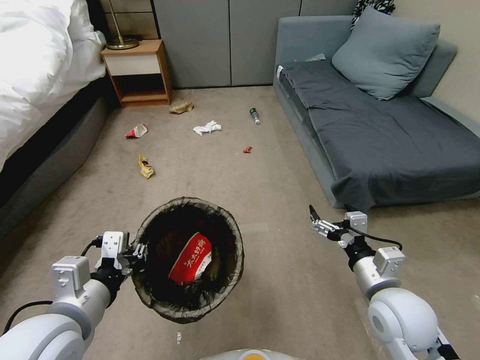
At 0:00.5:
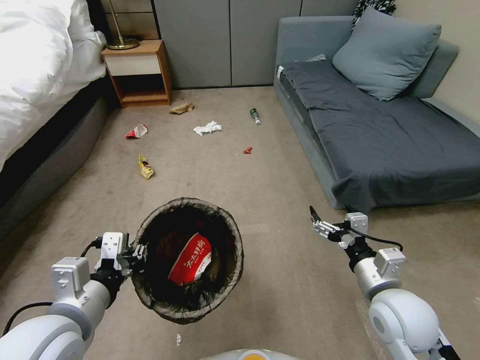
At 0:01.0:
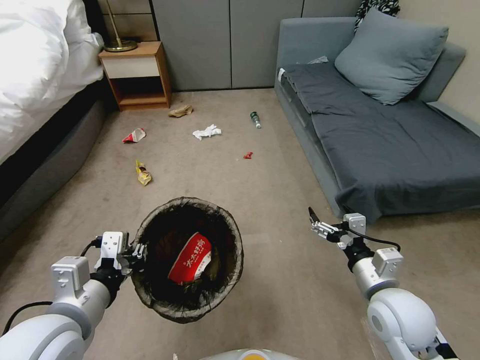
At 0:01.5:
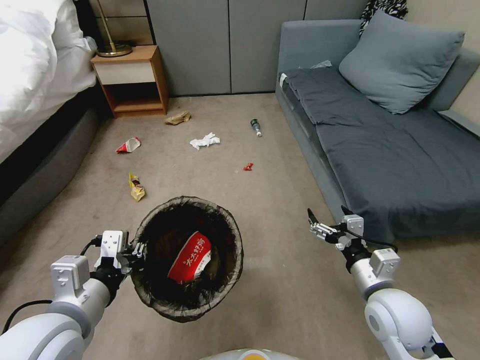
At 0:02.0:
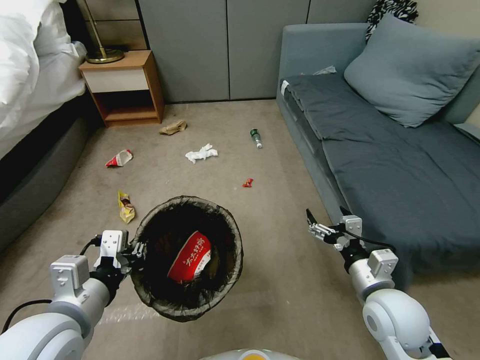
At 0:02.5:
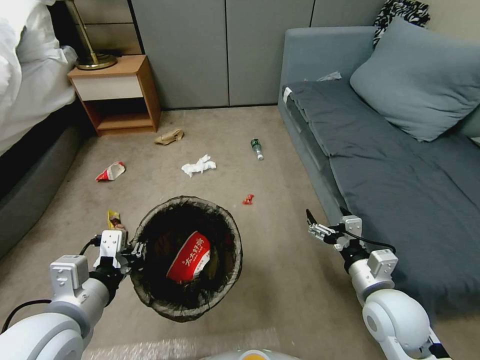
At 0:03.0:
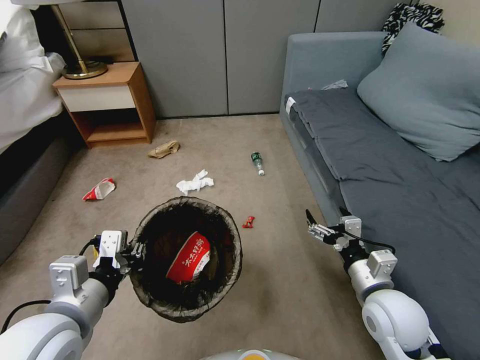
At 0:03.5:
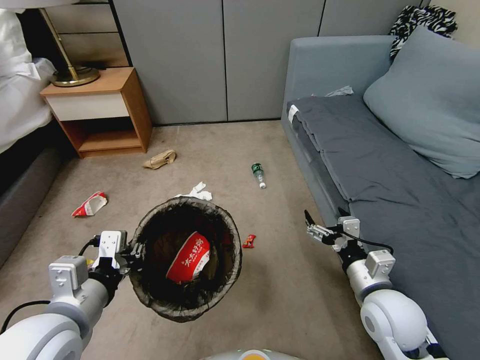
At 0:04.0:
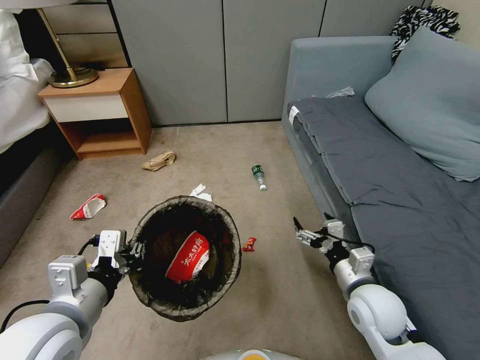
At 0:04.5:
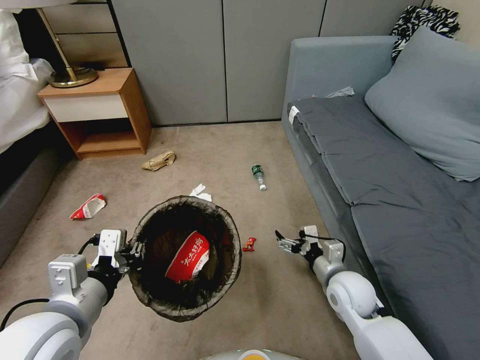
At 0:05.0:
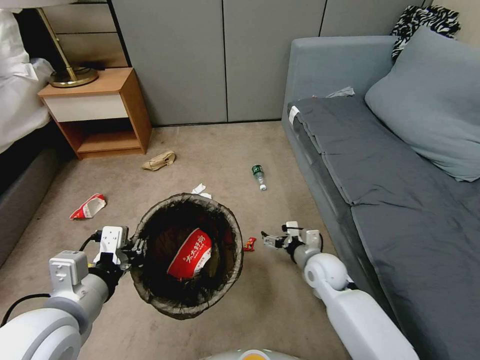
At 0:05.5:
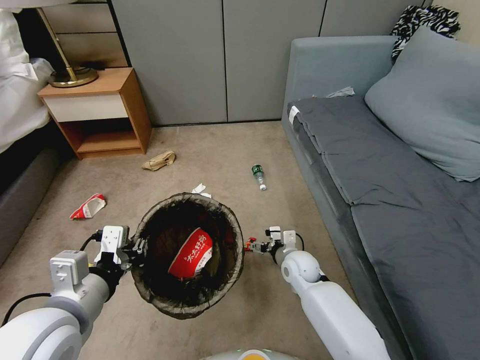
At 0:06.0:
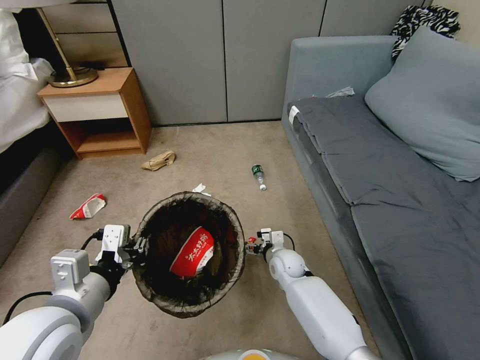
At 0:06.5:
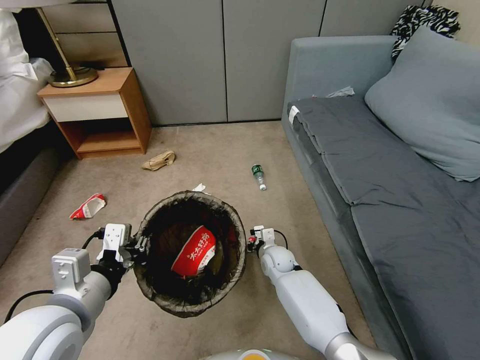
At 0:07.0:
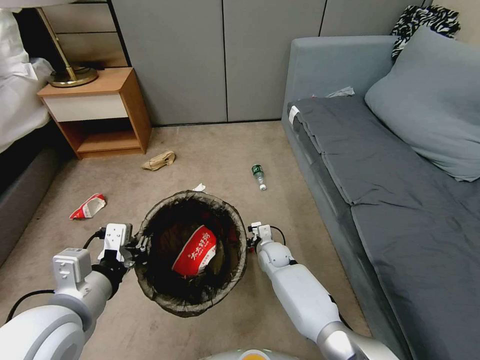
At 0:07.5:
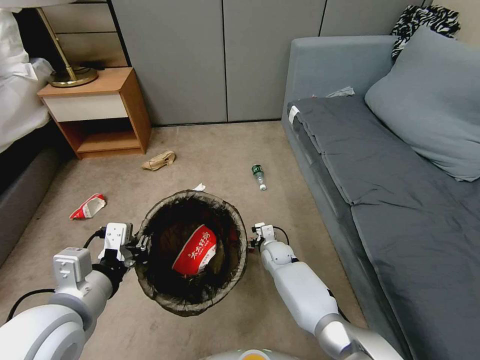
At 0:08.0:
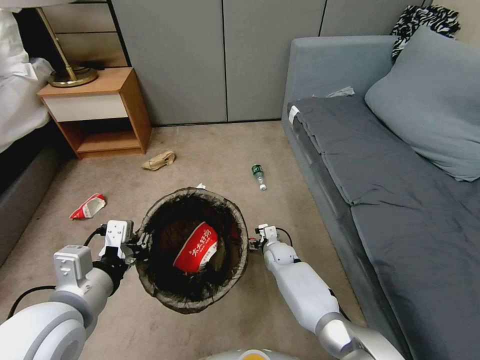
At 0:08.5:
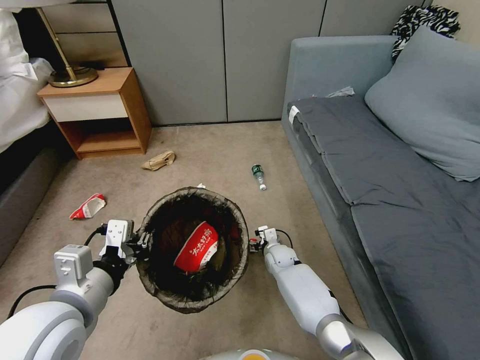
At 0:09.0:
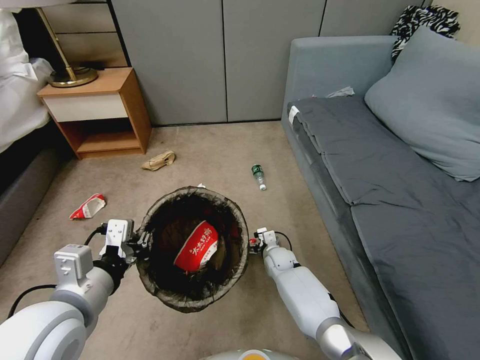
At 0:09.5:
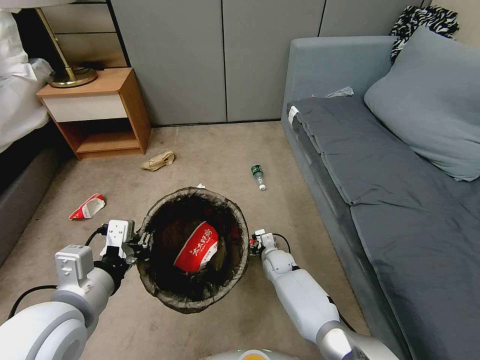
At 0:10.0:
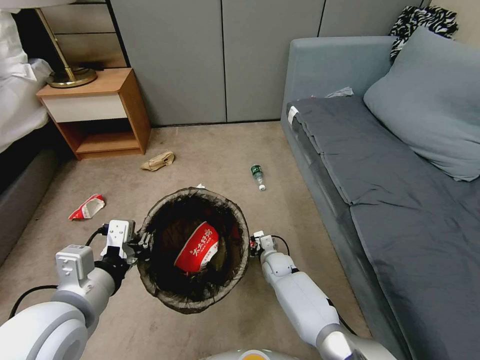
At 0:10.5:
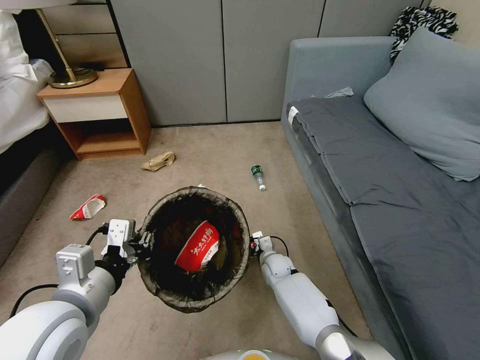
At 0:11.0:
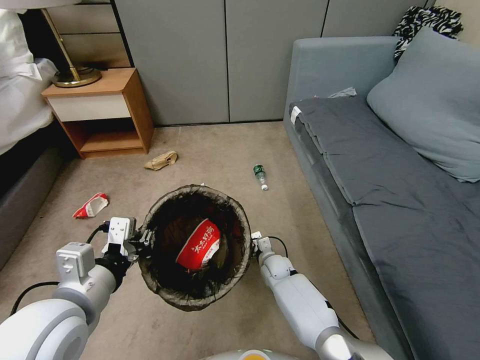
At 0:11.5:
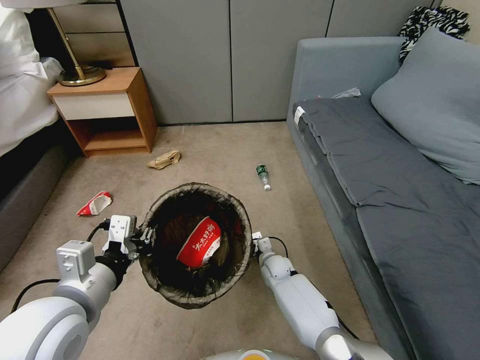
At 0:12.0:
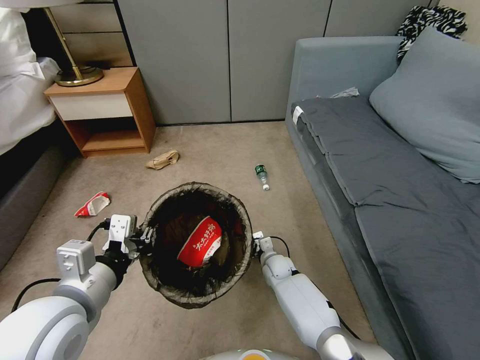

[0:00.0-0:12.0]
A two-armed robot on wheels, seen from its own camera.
Task of the whole recording: Pick up the trash bin, then pick up the garbage from the floor and place it into the trash bin.
0:04.0 to 0:06.0: The right gripper travels forward, to the left and downward by some 25 cm.
0:06.0 to 0:08.0: The right gripper ends up about 5 cm from where it was.
0:08.0 to 0:10.0: The grippers stay close to where they were, moving slightly.
0:10.0 to 0:12.0: The right gripper closes its fingers.

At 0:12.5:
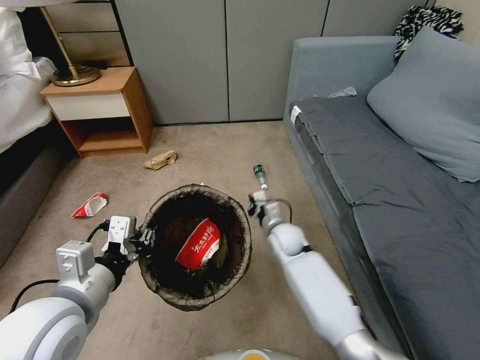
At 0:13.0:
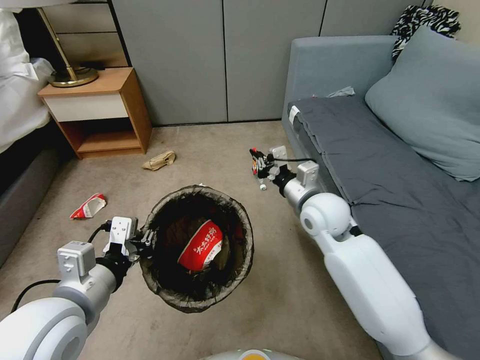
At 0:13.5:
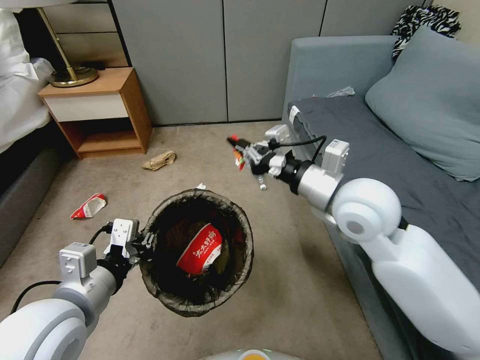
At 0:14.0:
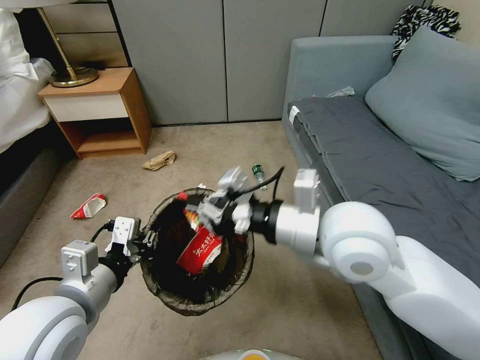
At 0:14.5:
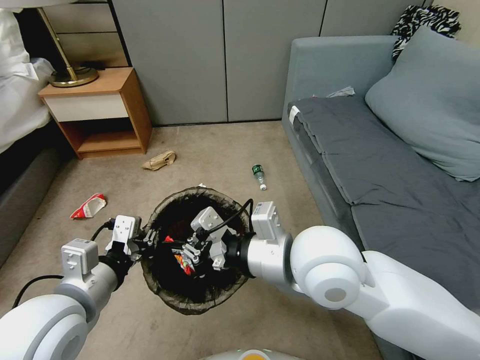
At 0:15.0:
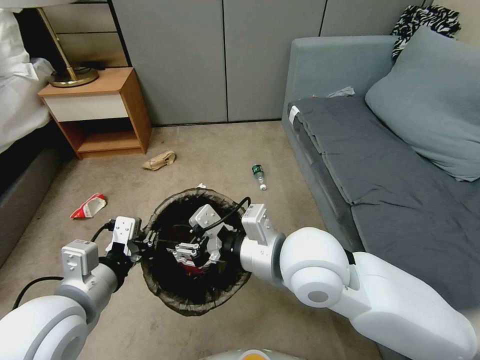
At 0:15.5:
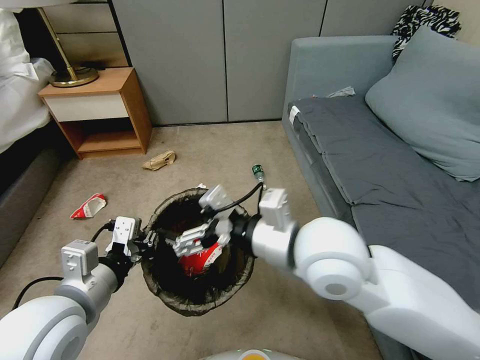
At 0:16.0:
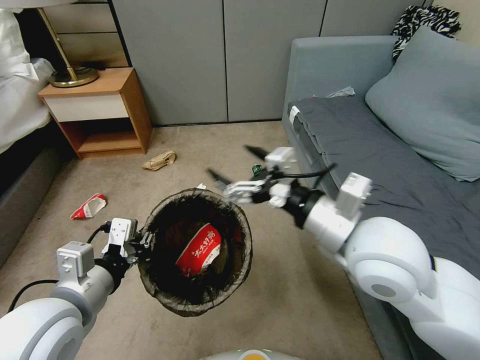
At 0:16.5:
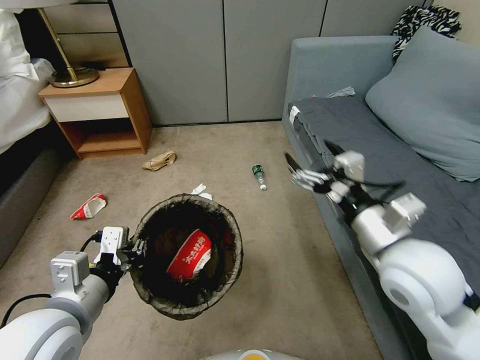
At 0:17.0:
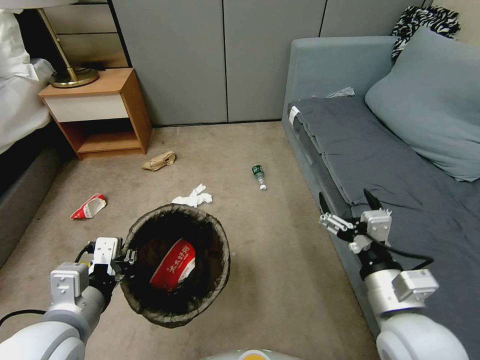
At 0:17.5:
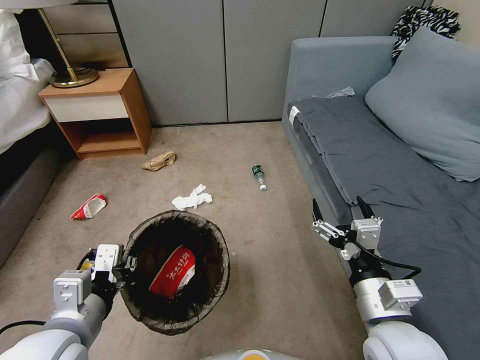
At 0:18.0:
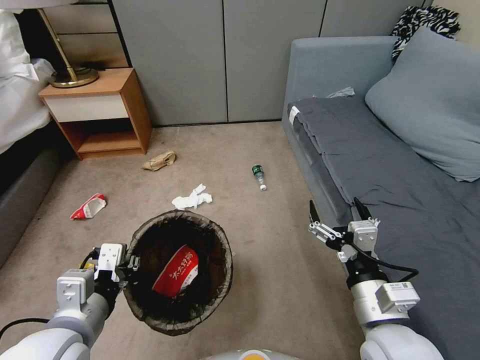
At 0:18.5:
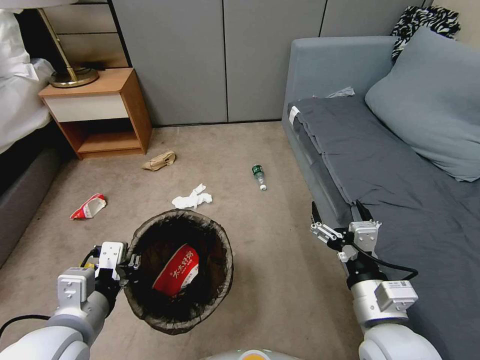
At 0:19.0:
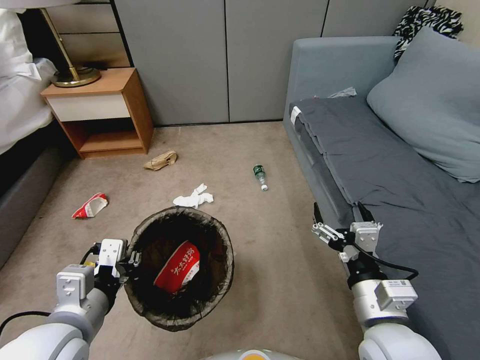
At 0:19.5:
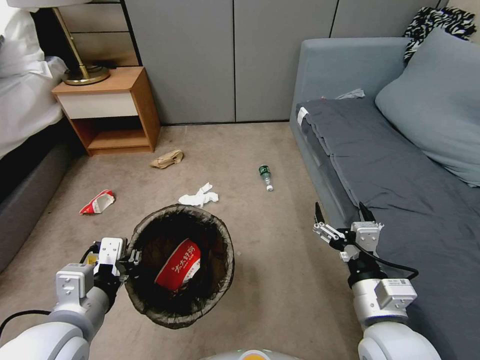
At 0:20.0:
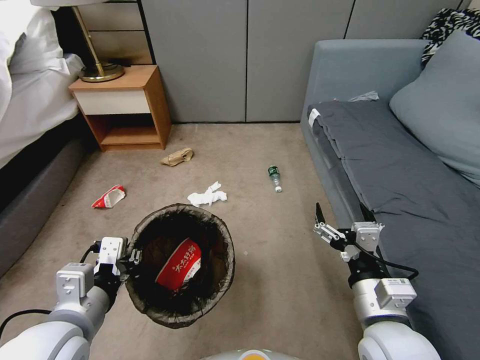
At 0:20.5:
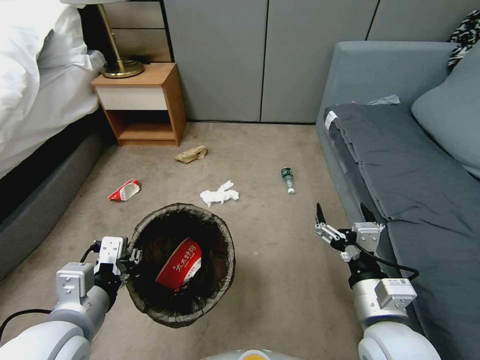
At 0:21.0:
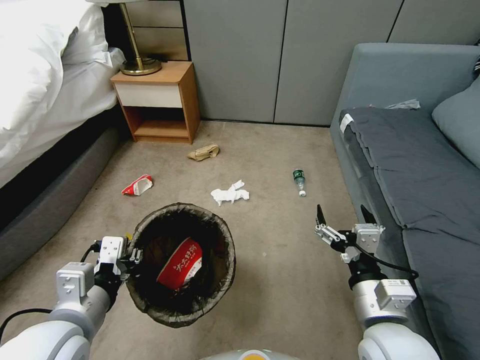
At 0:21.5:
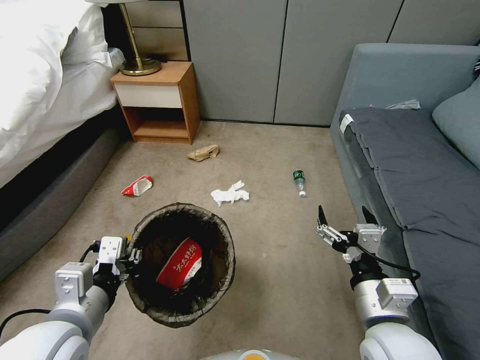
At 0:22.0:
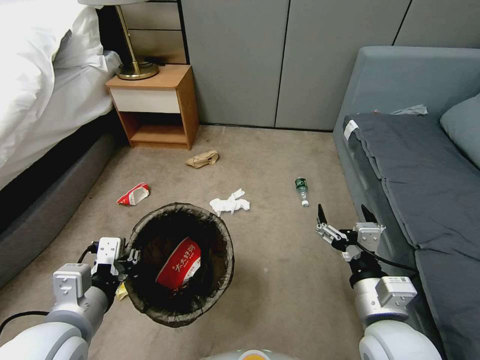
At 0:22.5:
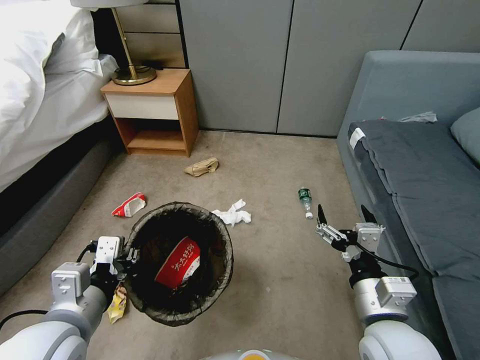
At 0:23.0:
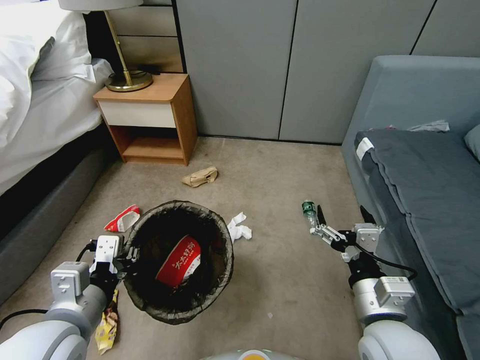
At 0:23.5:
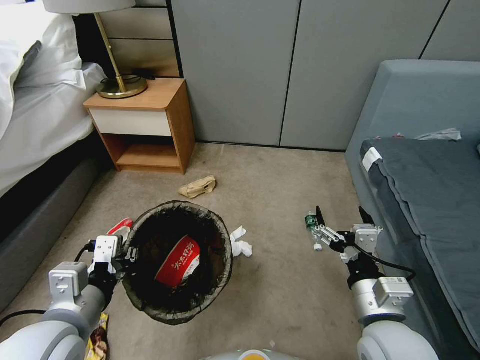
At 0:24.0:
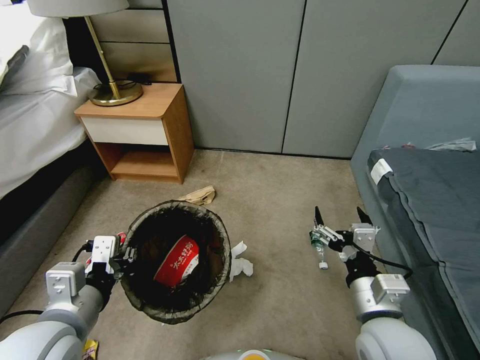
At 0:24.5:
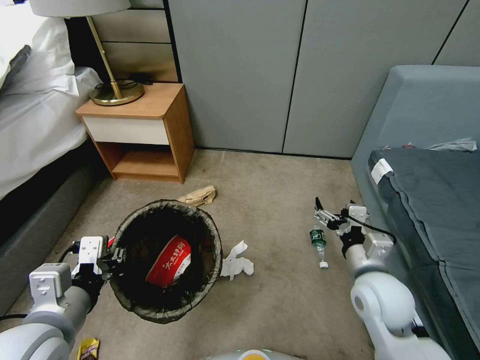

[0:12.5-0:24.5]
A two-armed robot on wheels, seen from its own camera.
Task of the whole recording: Pick up the trash bin, then pick up the garbage from the floor and place it into the trash bin.
0:12.5 to 0:14.5: The right gripper is displaced upward and backward by about 35 cm.
0:14.5 to 0:16.5: The right gripper is displaced to the right by about 15 cm, and opens its fingers.
0:16.5 to 0:18.5: The right gripper is displaced downward and backward by roughly 10 cm.
0:22.5 to 0:24.5: The right gripper is displaced forward by approximately 10 cm.

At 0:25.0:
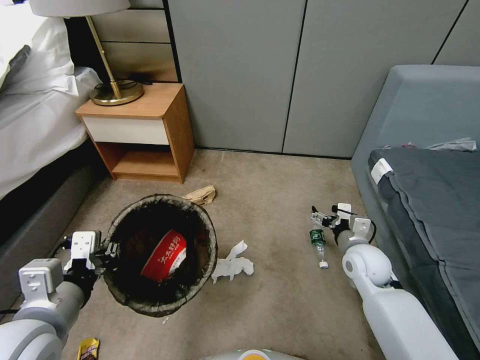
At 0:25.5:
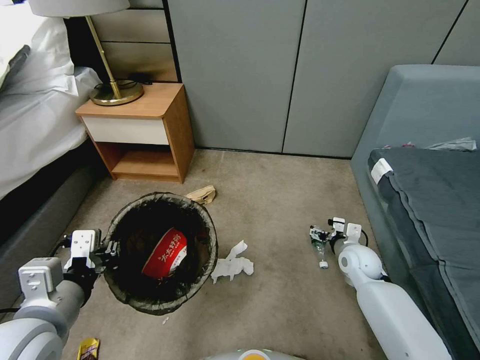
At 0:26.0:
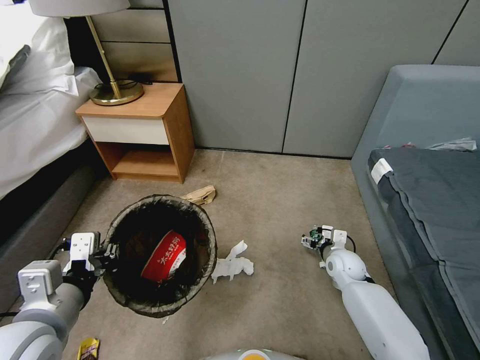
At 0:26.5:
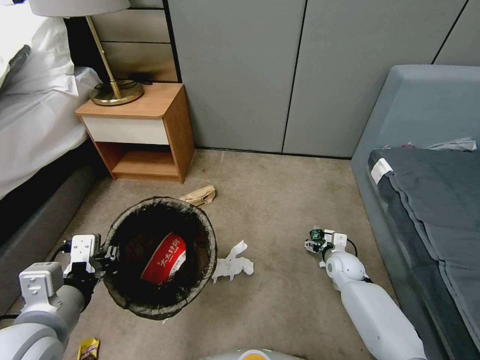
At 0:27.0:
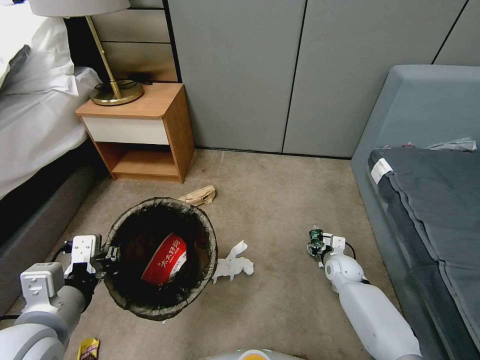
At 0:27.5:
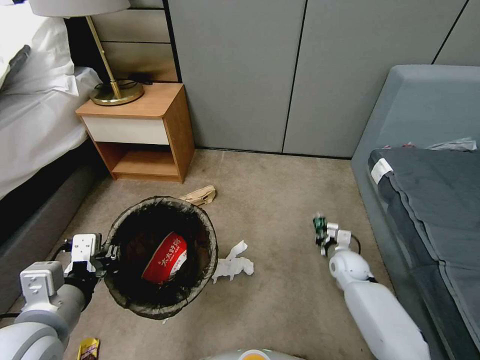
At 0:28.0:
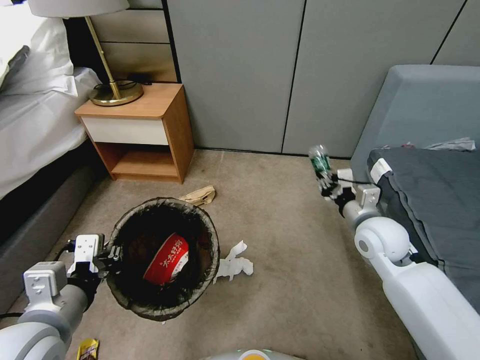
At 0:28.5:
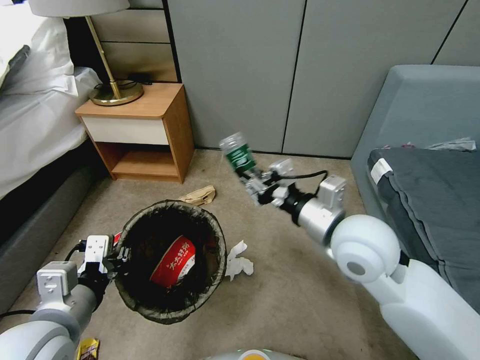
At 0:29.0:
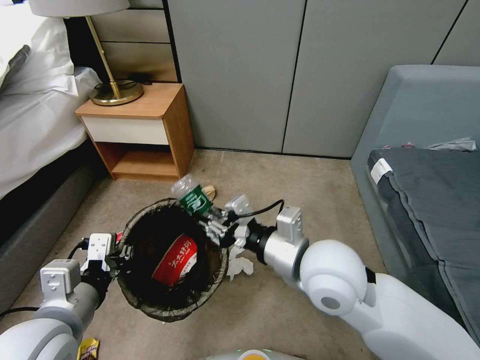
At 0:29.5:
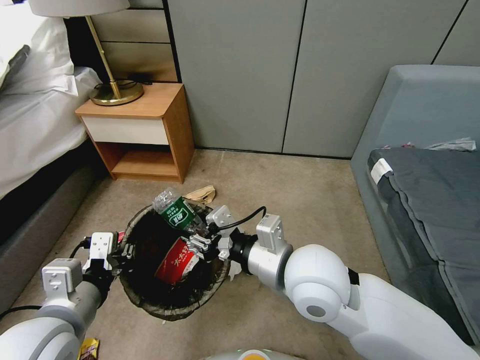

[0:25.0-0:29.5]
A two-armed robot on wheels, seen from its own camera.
Task of the whole recording: Pick up the trash bin, then pick up the garbage from the floor and place it into the trash bin.
0:25.0 to 0:27.0: The right gripper goes about 15 cm downward, and closes its fingers.
0:27.0 to 0:29.5: The right gripper shifts approximately 40 cm upward, to the left and backward.
